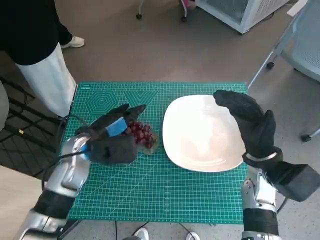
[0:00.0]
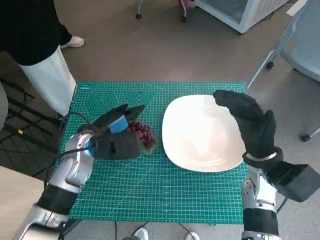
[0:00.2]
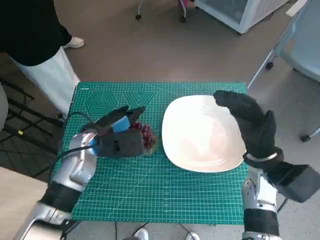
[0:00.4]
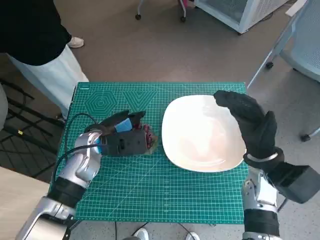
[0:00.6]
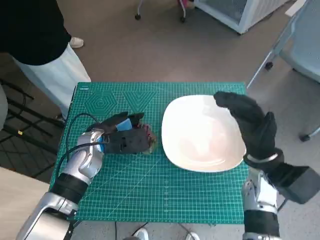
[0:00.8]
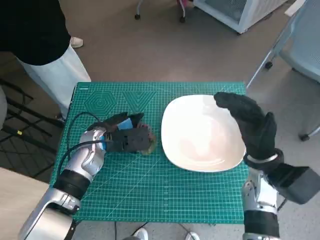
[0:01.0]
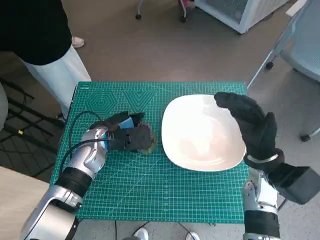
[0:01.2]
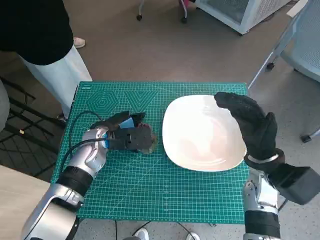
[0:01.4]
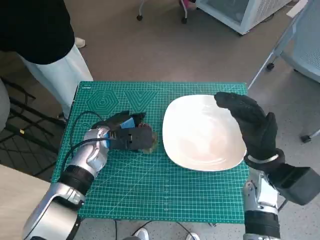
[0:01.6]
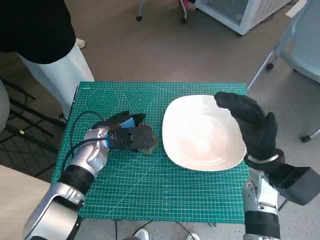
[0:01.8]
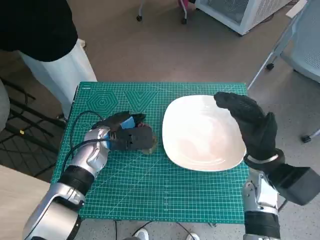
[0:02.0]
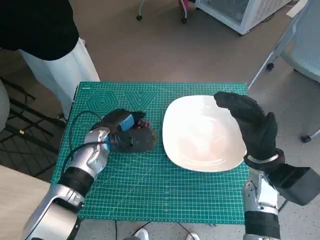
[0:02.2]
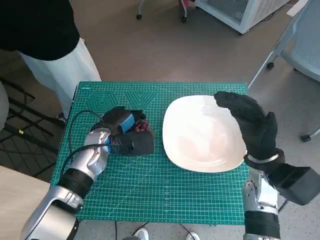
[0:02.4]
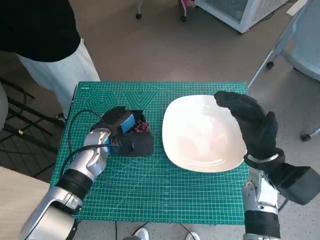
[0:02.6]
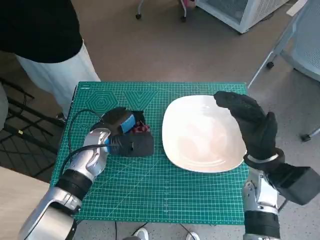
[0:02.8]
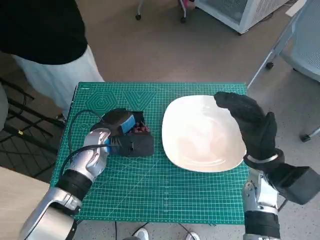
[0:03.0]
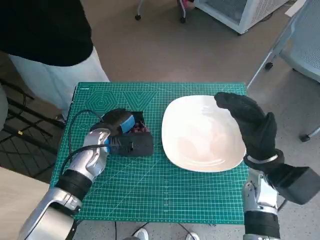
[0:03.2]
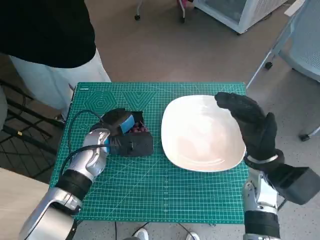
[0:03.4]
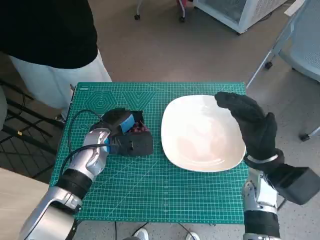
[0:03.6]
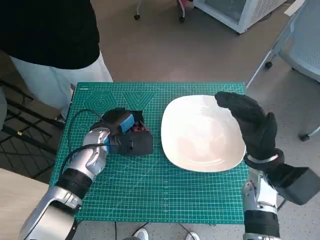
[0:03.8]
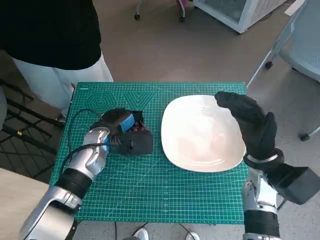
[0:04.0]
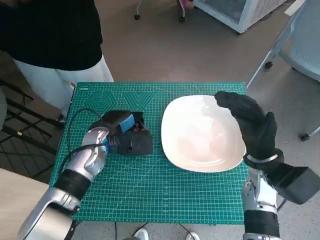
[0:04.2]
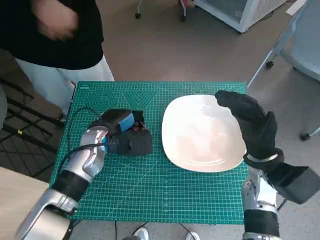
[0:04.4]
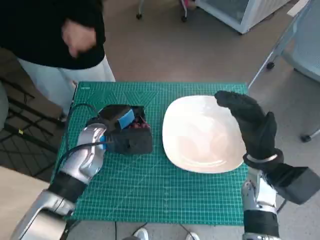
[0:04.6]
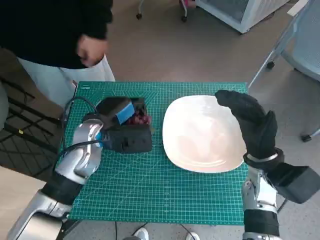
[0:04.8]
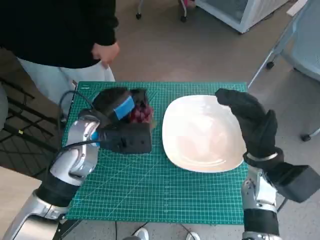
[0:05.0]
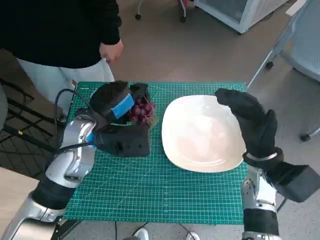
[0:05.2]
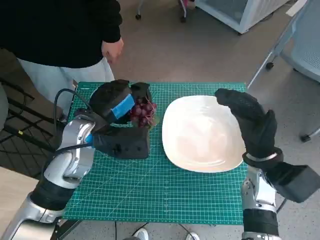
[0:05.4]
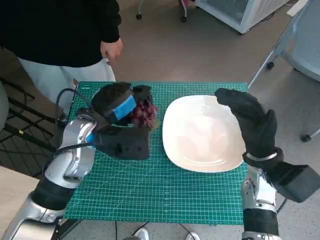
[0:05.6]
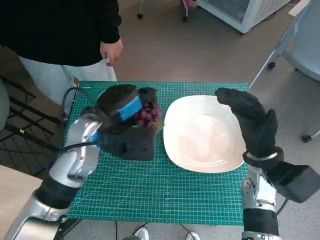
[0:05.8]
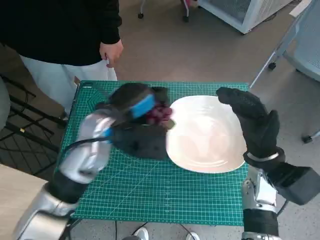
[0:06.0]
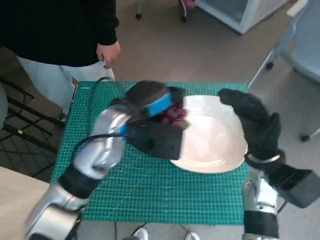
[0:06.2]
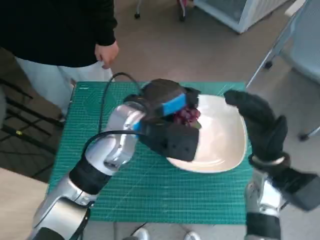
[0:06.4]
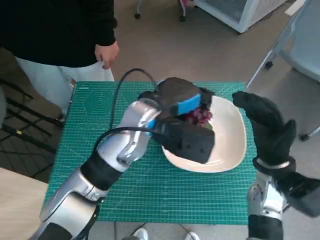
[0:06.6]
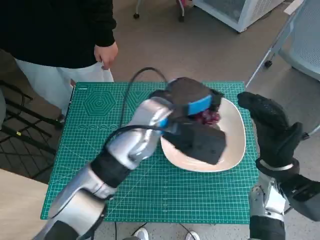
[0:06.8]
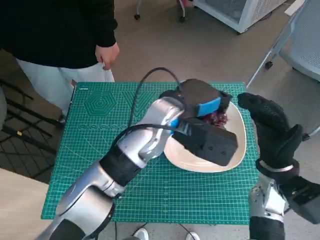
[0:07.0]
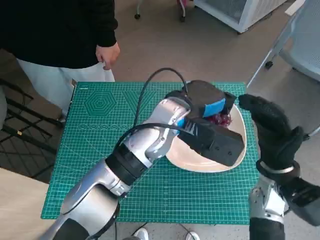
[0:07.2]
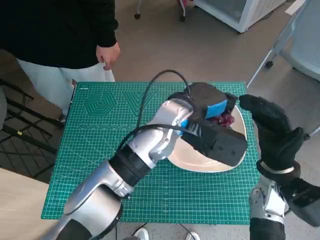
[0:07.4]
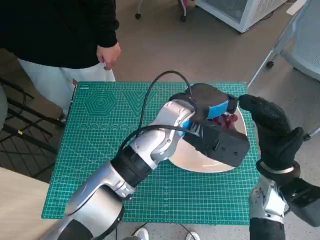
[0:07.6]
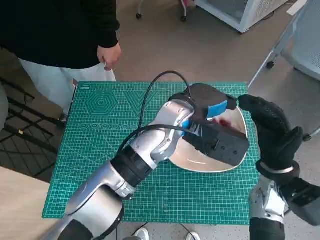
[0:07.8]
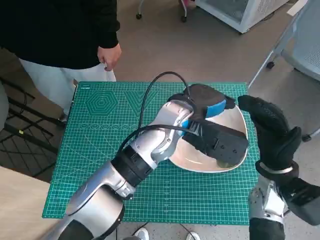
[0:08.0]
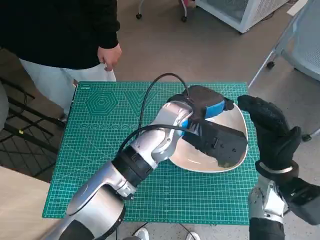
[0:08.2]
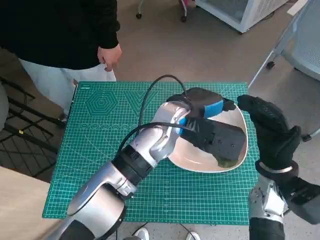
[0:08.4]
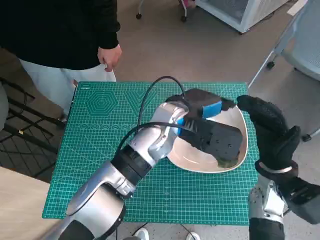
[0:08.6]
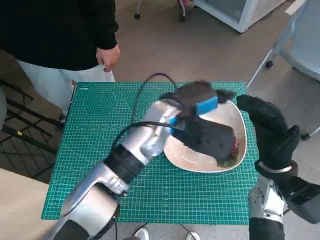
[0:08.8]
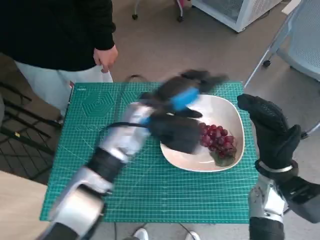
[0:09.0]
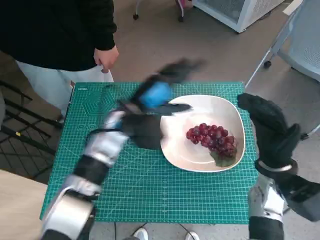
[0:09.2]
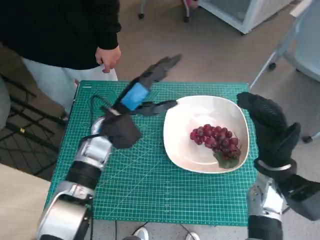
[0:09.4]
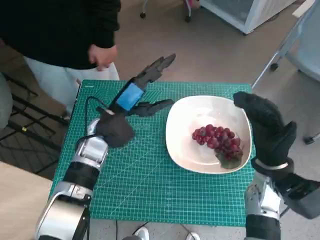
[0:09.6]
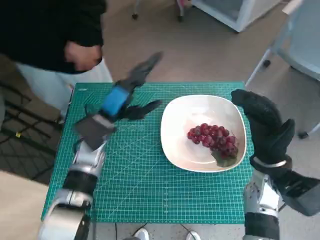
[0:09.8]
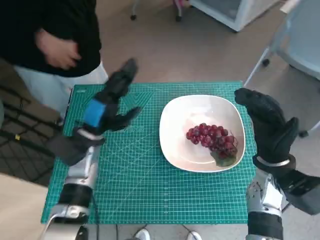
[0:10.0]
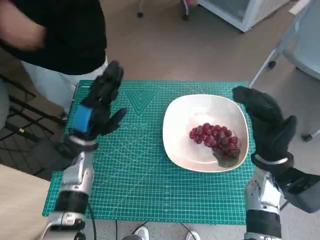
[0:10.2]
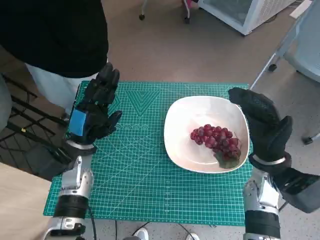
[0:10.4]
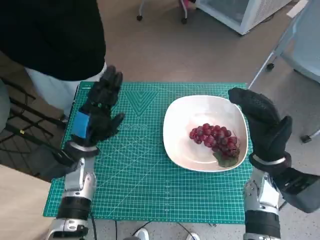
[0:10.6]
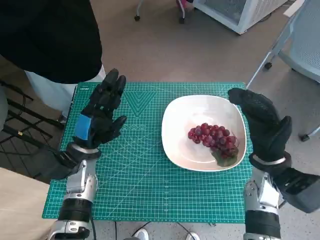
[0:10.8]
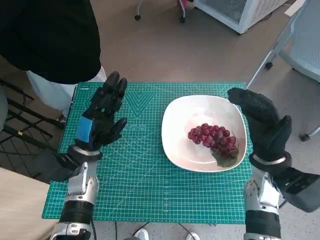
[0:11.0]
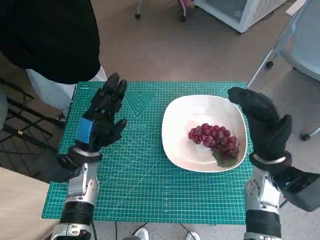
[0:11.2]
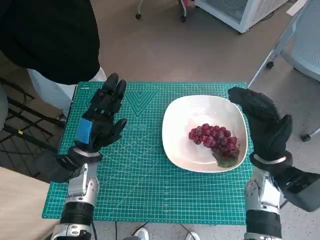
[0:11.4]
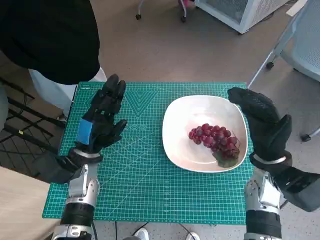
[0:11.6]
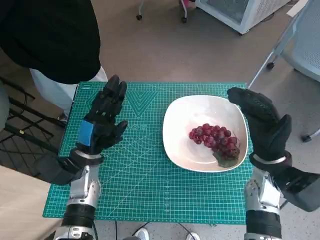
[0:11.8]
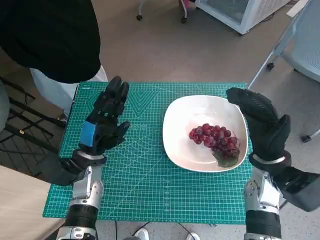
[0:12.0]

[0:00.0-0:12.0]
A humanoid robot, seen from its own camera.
Task of the whole recording: Pick up the grapes and put them on the plate.
Step, 0:00.0 to 0:03.0: Grasp the grapes with left hand.
Step, 0:03.2 to 0:08.2: Place the grapes in the plate with left hand.
0:00.0 to 0:01.6: The left hand shifts by approximately 5 cm.
0:01.6 to 0:03.0: The hands move only a little.
0:03.0 to 0:04.4: Both hands stay about where they are.
0:04.4 to 0:06.0: The left hand travels upward by approximately 10 cm.
0:06.0 to 0:07.6: The left hand is displaced to the right by about 15 cm.
0:09.0 to 0:10.4: The left hand travels to the left and downward by approximately 20 cm.
0:10.4 to 0:12.0: The hands make only small movements.

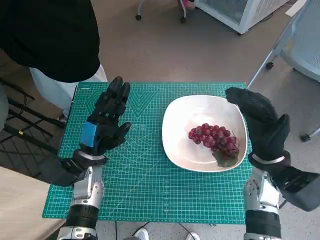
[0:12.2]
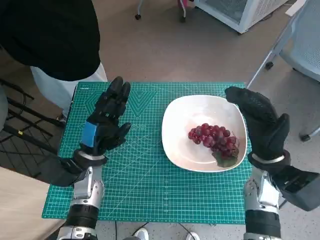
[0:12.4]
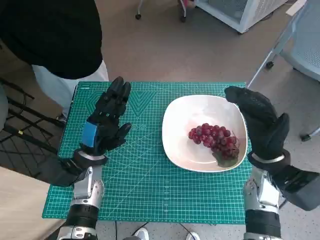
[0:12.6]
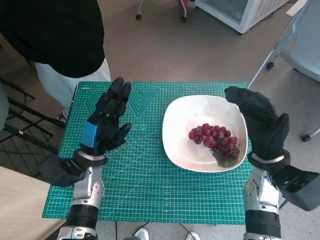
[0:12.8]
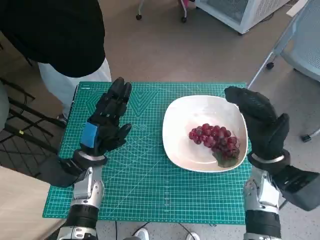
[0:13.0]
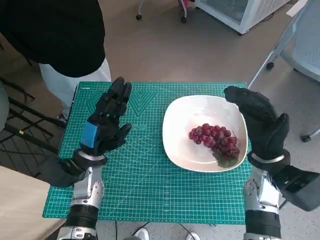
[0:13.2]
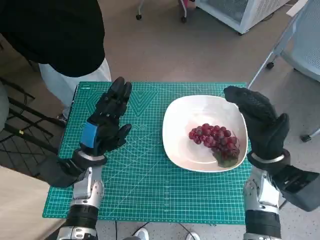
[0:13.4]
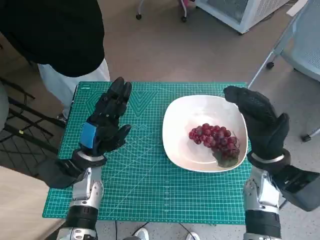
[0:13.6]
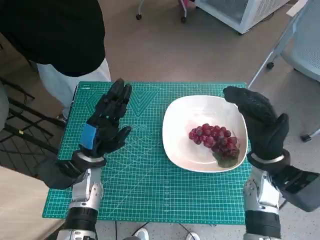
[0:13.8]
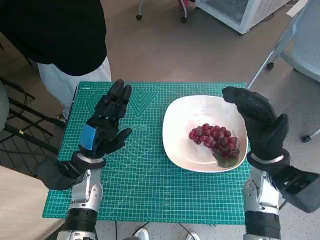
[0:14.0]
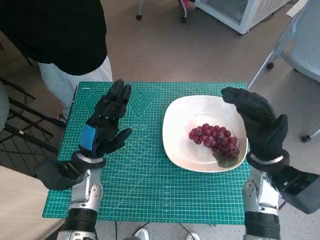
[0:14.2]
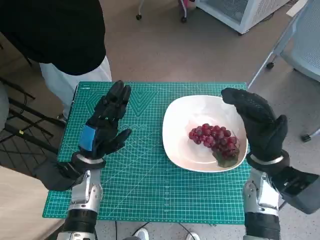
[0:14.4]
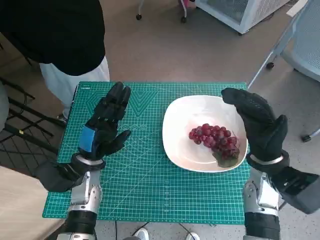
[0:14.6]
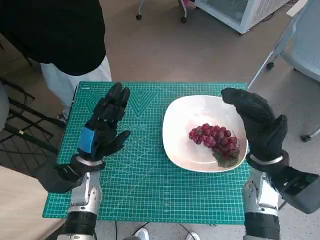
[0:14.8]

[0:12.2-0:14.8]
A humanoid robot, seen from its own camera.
Task of the whole recording: Pick up the grapes and put them on the plate.
0:12.2 to 0:14.8: Both hands stay about where they are.

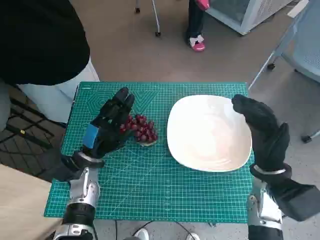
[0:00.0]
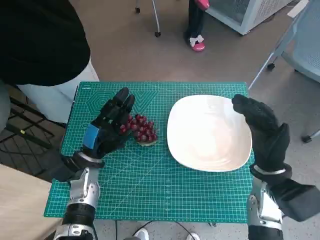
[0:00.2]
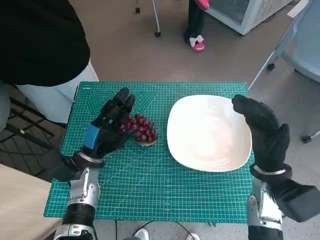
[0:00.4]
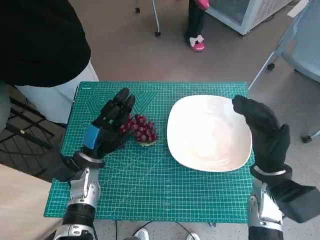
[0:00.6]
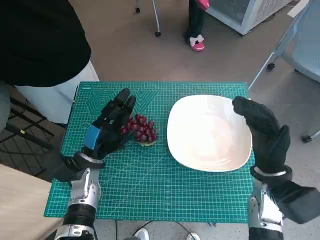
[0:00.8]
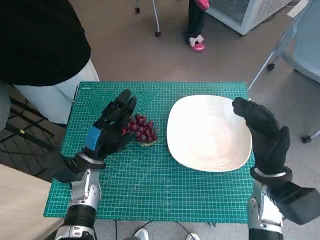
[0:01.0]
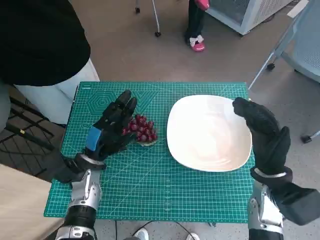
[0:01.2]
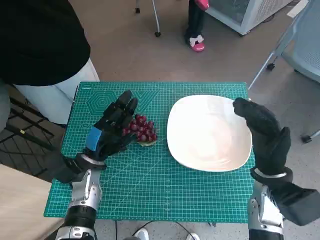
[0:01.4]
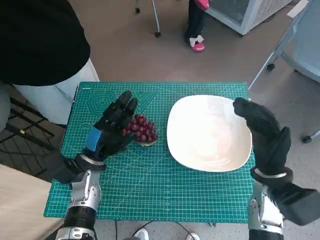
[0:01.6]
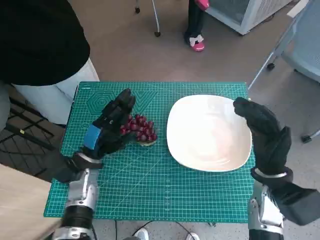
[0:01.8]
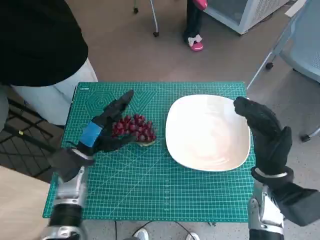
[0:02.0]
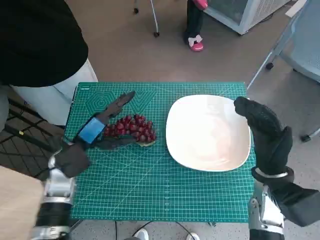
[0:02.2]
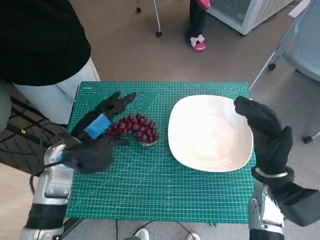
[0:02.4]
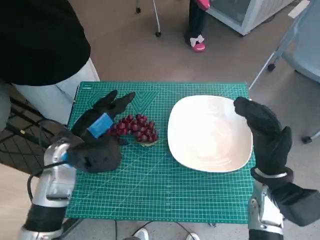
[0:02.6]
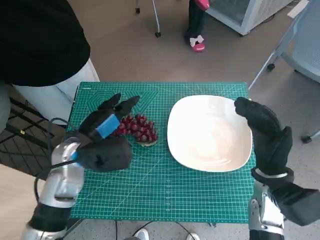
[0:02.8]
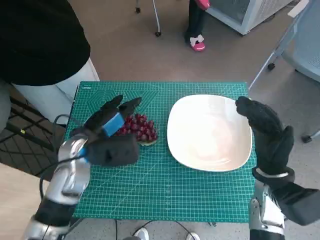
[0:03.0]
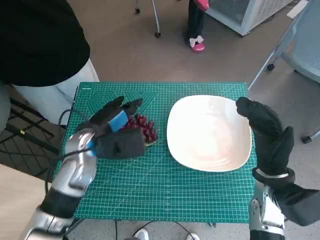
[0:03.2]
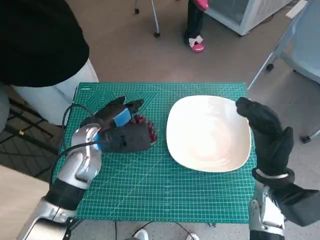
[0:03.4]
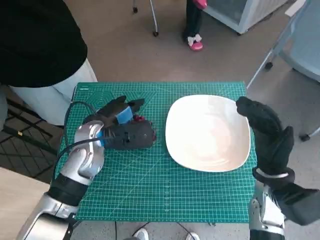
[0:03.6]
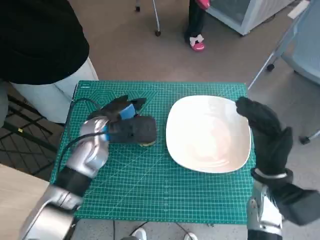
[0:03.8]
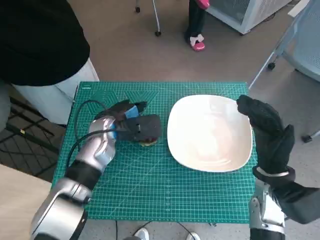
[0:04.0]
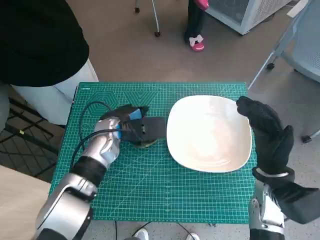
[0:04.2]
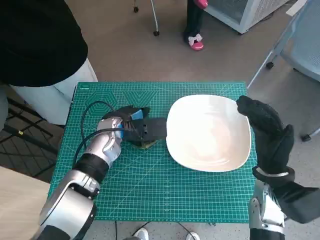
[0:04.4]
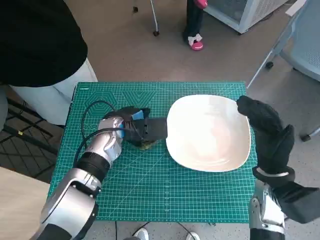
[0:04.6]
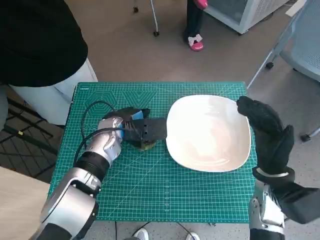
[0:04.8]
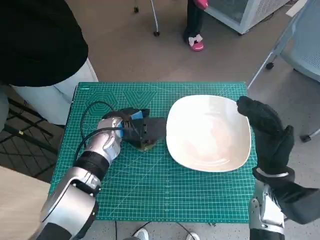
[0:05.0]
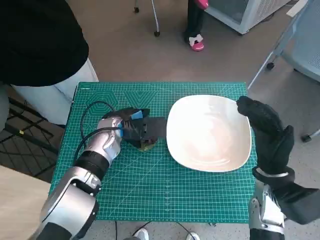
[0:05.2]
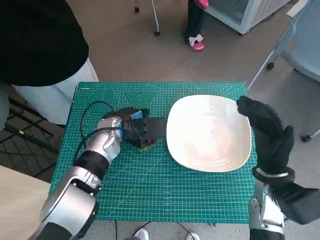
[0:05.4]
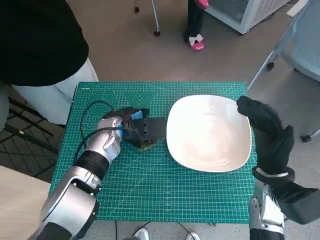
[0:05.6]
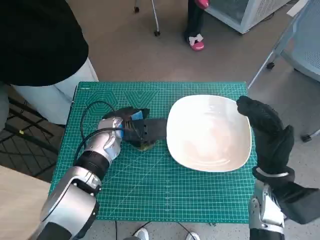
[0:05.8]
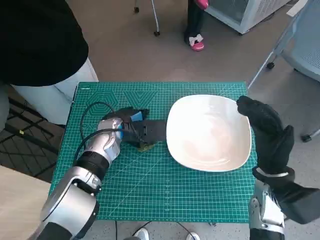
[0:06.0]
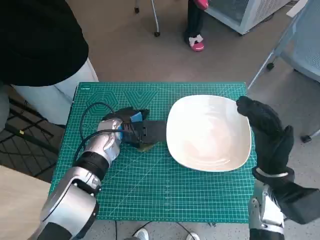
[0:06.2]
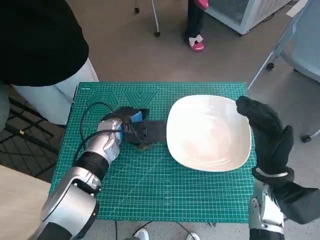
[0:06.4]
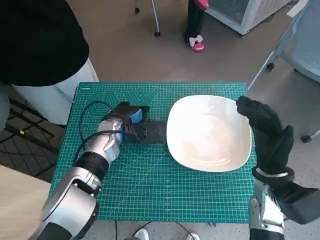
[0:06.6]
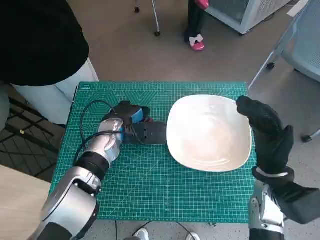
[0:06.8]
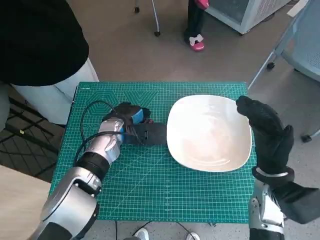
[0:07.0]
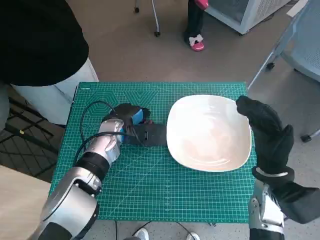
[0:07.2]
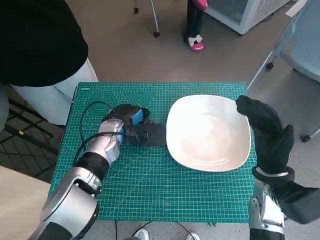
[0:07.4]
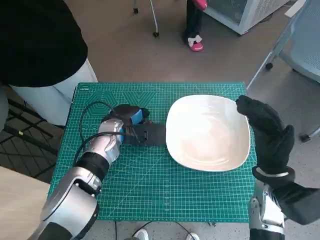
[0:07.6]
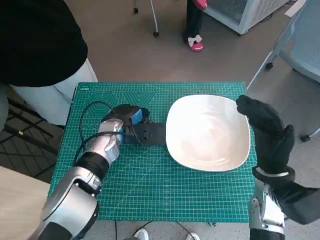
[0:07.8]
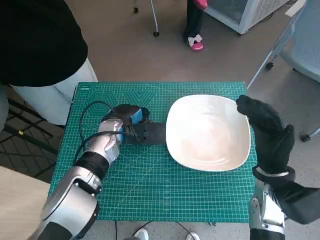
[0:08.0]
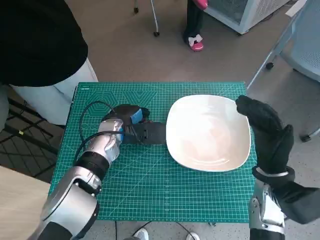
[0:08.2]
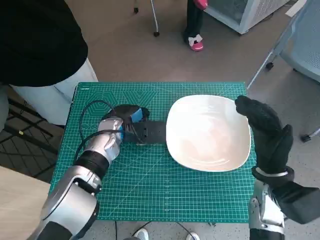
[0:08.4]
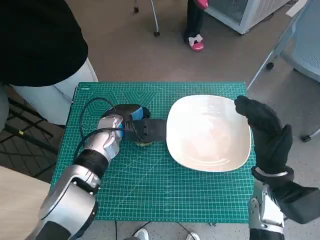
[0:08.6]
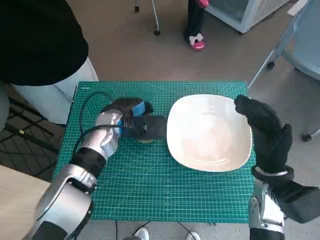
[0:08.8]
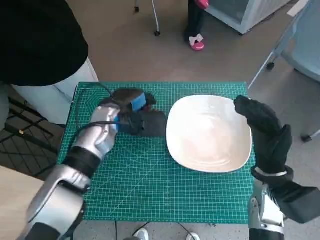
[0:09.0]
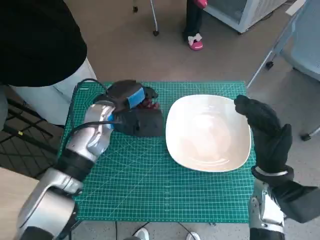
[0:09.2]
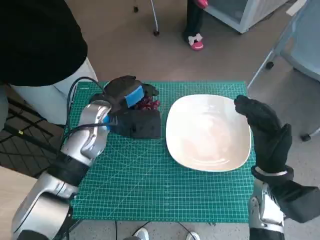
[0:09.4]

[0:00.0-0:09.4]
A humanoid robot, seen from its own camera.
Task of the whole recording: Pick up the grapes and put them on the plate.
Step, 0:00.0 to 0:07.4: Grasp the grapes with left hand.
0:01.6 to 0:03.2: The left hand shifts some 10 cm upward.
0:03.2 to 0:04.8: The left hand shifts about 5 cm forward.
0:04.8 to 0:06.2: Neither hand changes place.
0:06.2 to 0:07.8: There are only small adjustments of the hands.
0:07.8 to 0:09.4: The left hand is displaced upward by about 5 cm.
